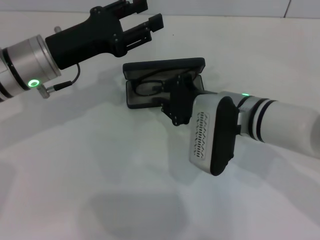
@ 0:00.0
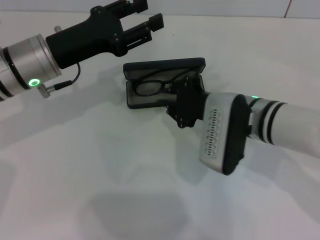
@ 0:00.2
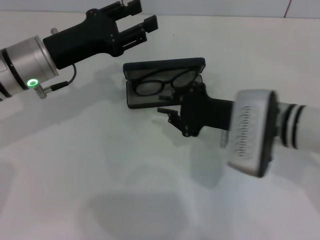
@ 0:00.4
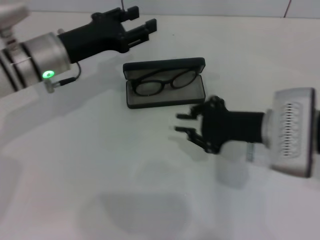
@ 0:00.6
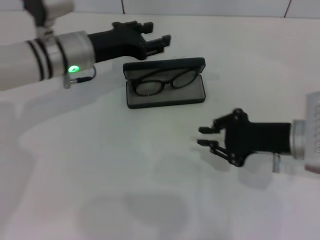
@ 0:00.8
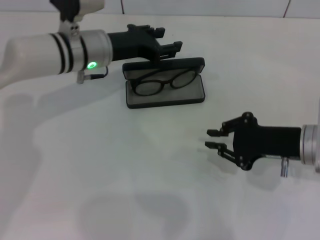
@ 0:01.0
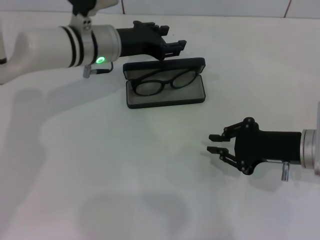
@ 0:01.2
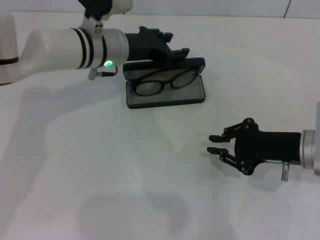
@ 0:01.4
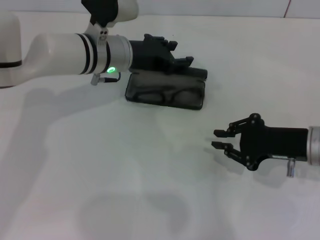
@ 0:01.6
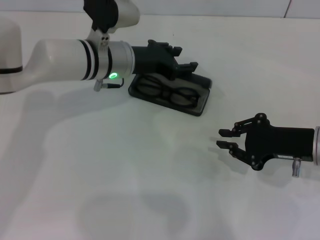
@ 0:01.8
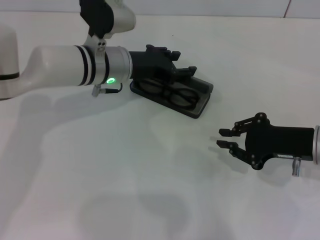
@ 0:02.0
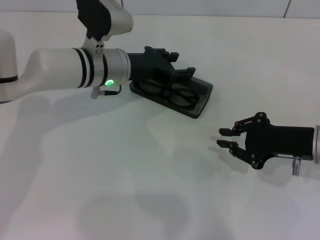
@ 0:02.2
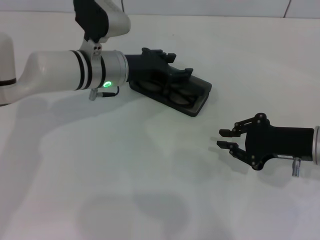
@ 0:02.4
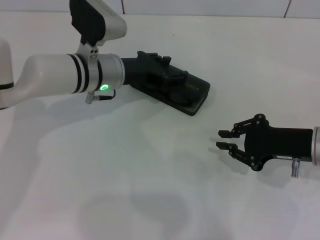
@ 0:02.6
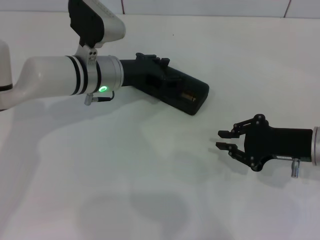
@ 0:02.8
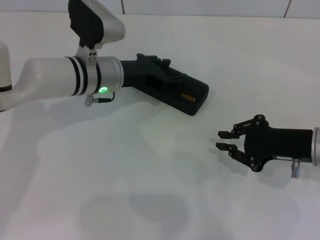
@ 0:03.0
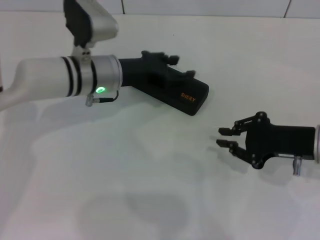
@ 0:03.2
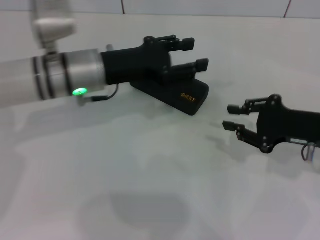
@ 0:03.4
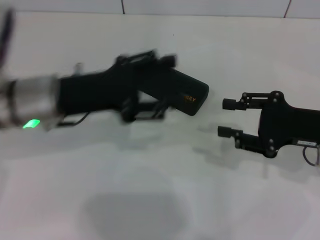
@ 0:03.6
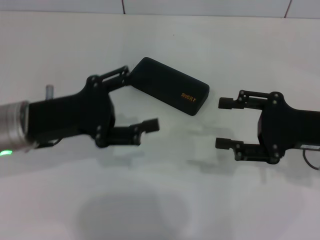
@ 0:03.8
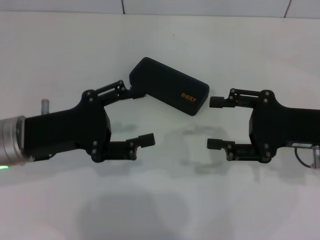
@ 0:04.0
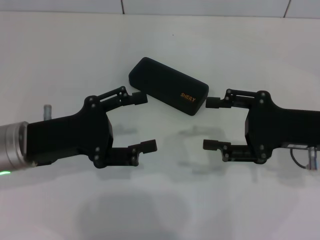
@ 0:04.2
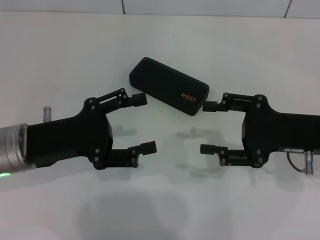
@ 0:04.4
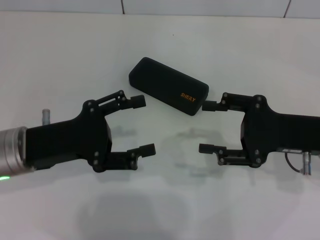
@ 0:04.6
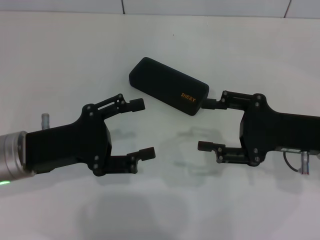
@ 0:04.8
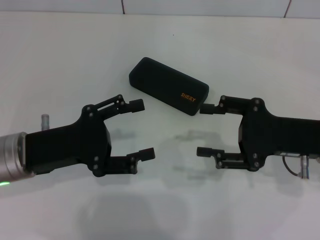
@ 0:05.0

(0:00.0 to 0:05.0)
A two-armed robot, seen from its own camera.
Step, 0:00.0 - 0:02.6: Close the glasses case with your left hand.
0:00.0 - 0:01.6: The right gripper is displaced to the right by some 15 cm, while the left gripper is displaced to the right and forward by approximately 10 cm.
0:01.6 - 0:03.4: The left gripper is displaced backward by roughly 5 cm.
0:03.4 - 0:05.0: The right gripper opens up. The left gripper is displaced backward and to the left by some 15 cm.

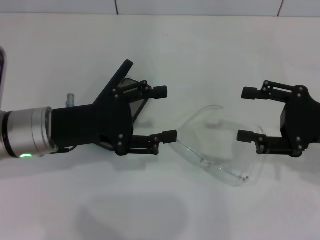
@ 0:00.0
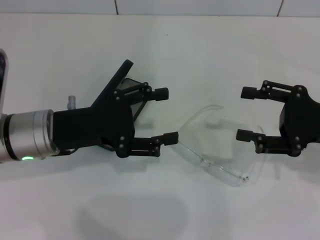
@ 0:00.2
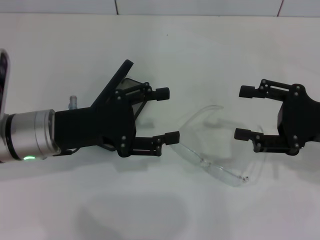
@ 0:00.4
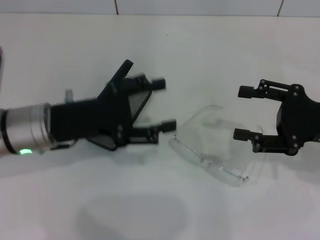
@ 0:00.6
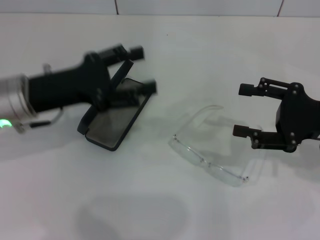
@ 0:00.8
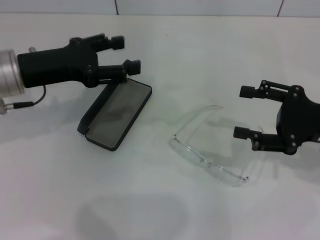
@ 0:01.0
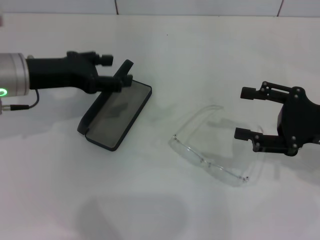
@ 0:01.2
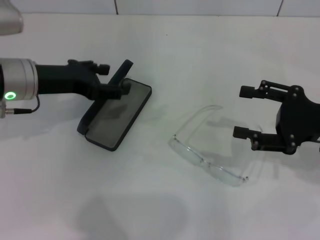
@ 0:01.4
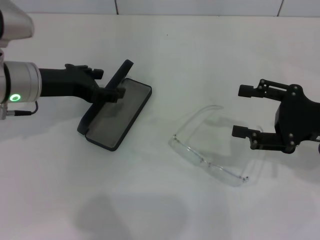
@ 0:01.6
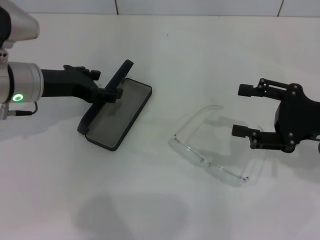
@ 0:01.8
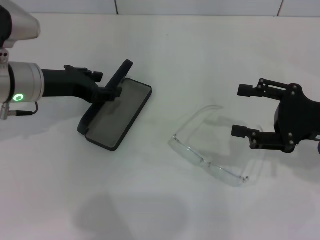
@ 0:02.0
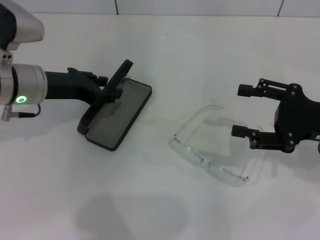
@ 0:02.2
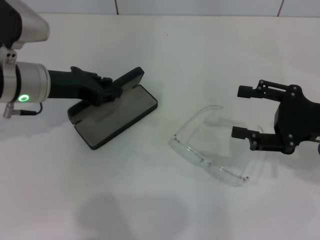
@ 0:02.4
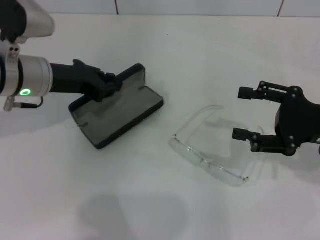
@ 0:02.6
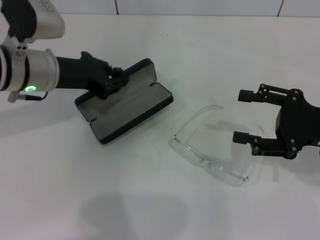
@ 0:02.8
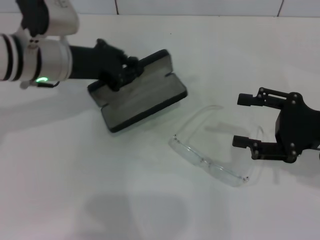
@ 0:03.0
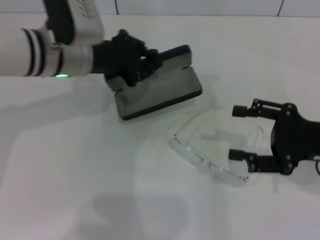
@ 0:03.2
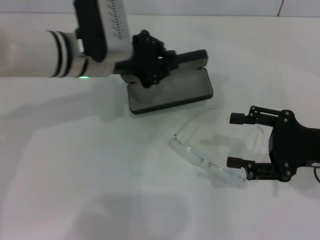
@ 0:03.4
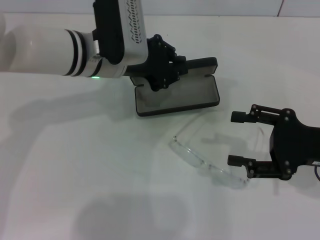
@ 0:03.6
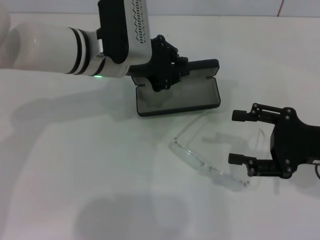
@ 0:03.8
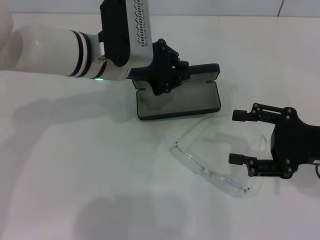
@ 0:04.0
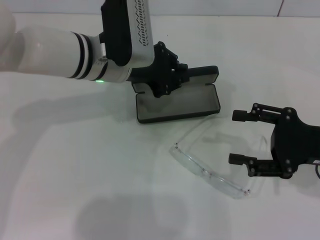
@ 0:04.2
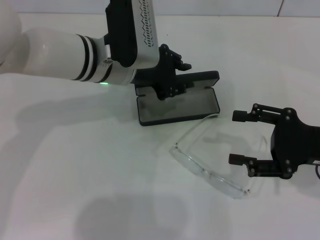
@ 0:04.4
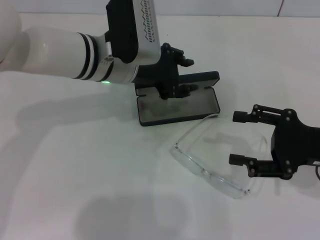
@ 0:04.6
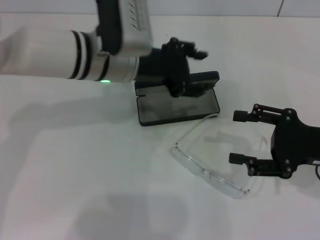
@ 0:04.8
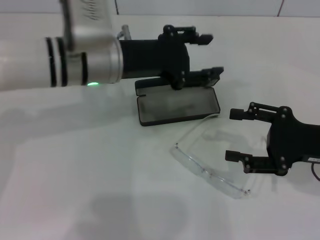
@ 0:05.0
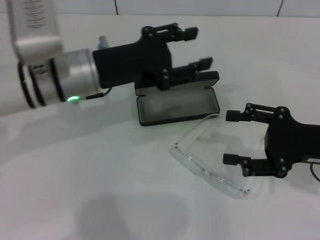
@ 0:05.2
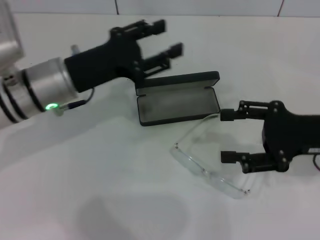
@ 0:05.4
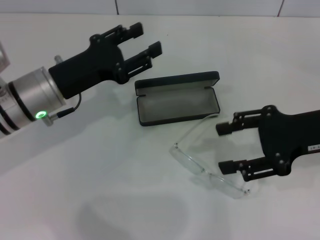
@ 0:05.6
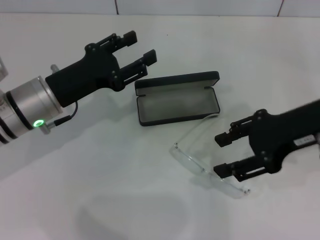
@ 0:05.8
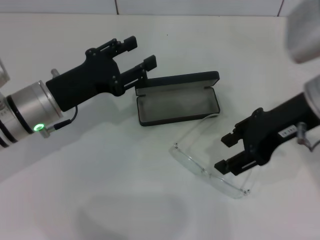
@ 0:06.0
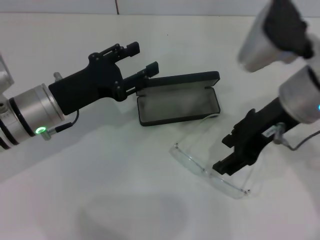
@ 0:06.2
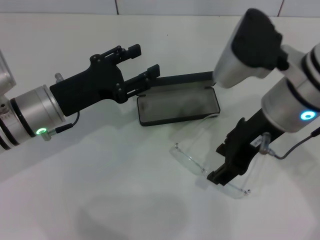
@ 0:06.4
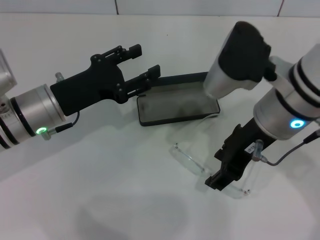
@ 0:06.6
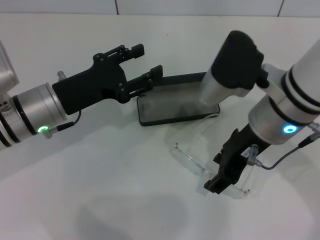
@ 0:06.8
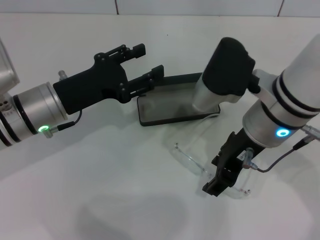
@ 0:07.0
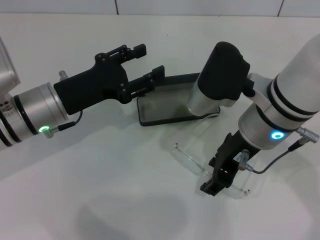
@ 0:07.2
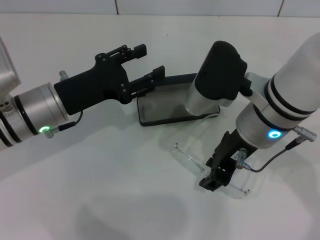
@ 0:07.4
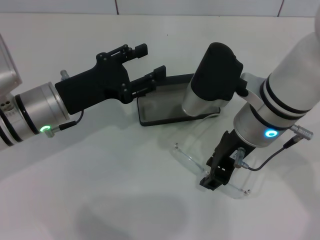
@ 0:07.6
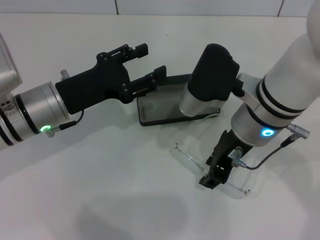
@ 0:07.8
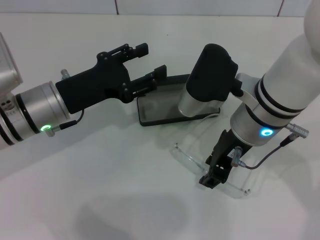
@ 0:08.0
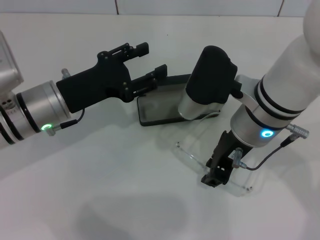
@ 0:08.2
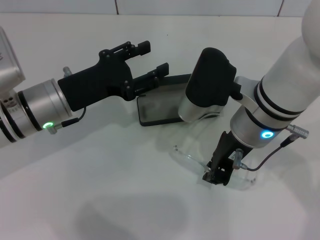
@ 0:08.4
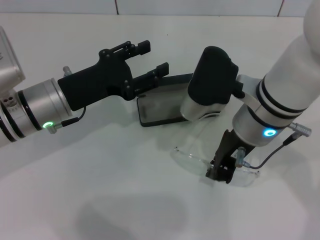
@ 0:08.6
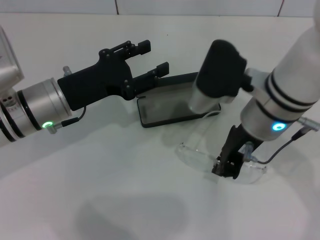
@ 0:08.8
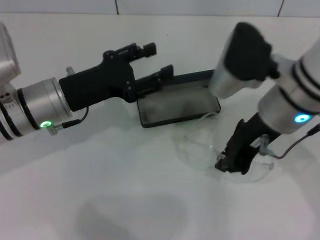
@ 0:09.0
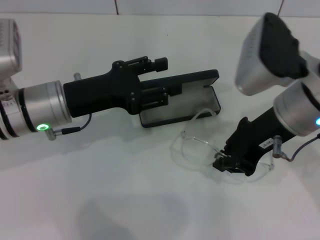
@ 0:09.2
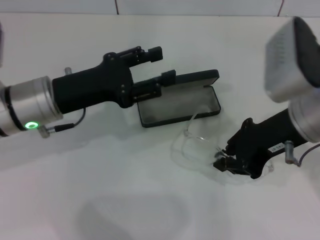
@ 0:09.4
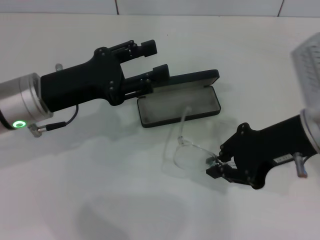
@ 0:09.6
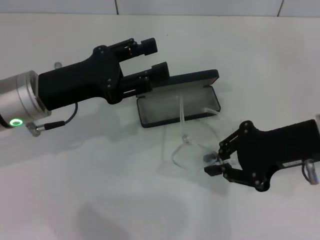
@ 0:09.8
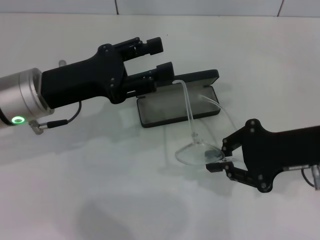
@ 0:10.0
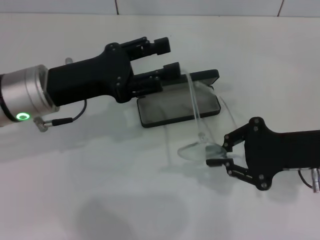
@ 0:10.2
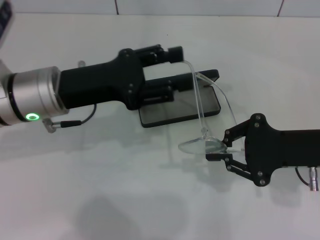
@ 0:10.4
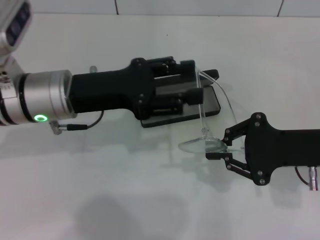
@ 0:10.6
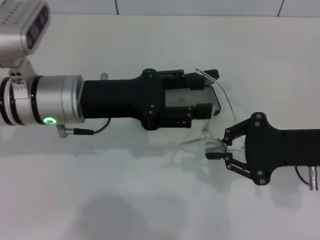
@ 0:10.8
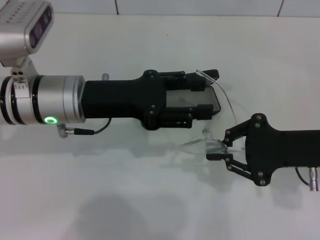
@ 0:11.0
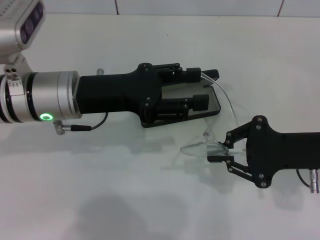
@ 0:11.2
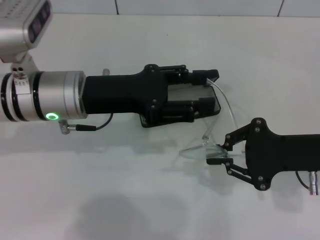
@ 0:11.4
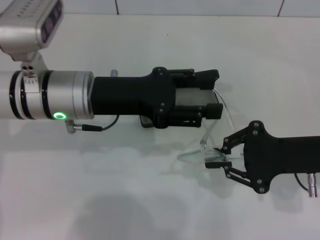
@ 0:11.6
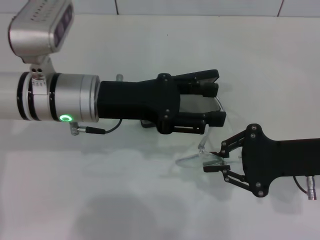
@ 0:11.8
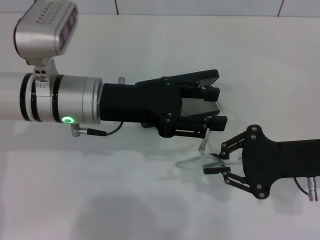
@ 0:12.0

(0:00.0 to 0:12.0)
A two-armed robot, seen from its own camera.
Step, 0:00.0 - 0:02.4: Grab the glasses case with your left hand.
Step, 0:02.6 - 0:04.4: Place the glasses case in the center of the table with your left hand.
Step, 0:04.6 - 0:08.6: Grab the eyeglass frame with your right hand.
0:00.0 - 0:01.6: The left gripper travels forward by roughly 5 cm.
0:01.6 - 0:03.0: The left gripper changes place by roughly 5 cm, and closes.
0:03.0 - 0:04.4: The left gripper shifts roughly 10 cm to the right.
0:04.4 - 0:06.0: The right gripper travels upward and to the left by roughly 15 cm, while the left gripper shifts roughly 15 cm to the left and backward, and opens.
0:06.0 - 0:07.6: The right gripper moves to the left, about 10 cm.
0:07.6 - 0:09.0: The right gripper closes.
0:09.0 - 0:10.4: The right gripper goes approximately 10 cm to the right and downward.

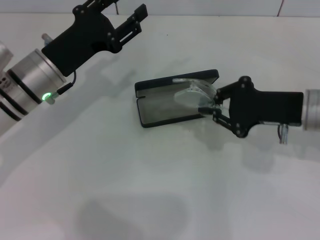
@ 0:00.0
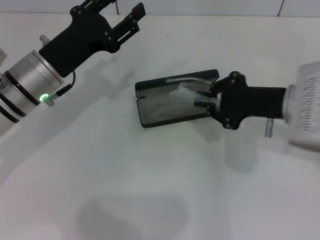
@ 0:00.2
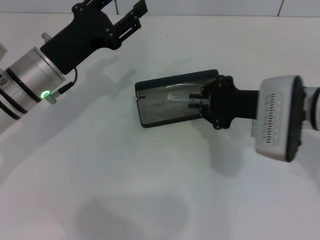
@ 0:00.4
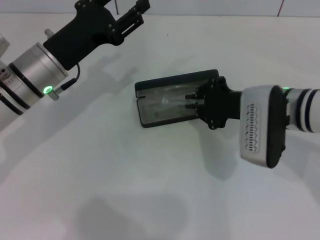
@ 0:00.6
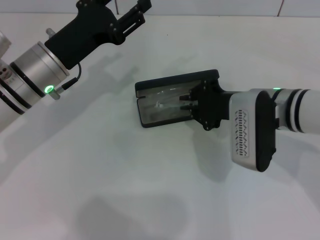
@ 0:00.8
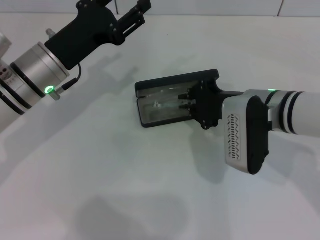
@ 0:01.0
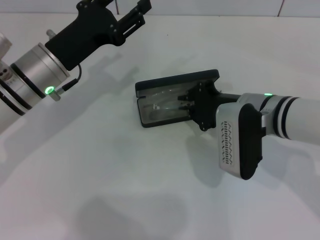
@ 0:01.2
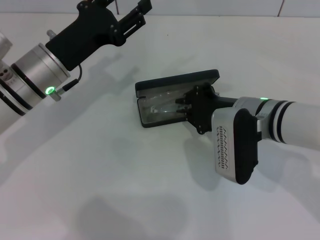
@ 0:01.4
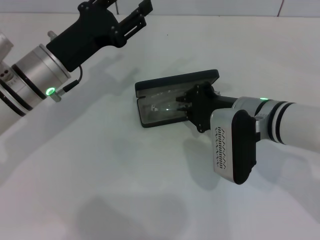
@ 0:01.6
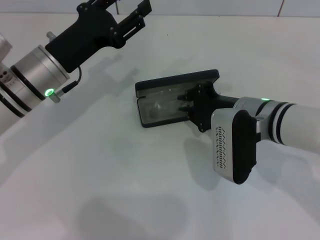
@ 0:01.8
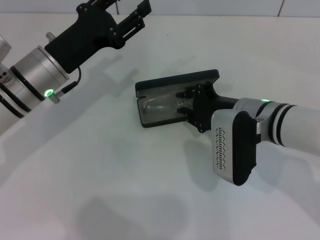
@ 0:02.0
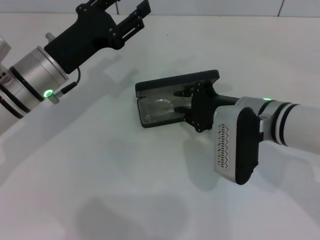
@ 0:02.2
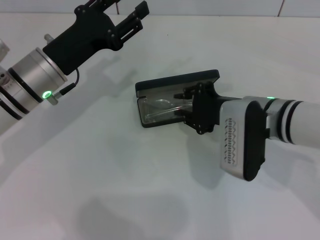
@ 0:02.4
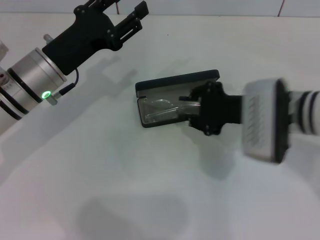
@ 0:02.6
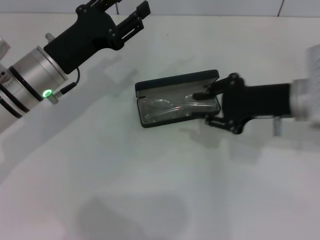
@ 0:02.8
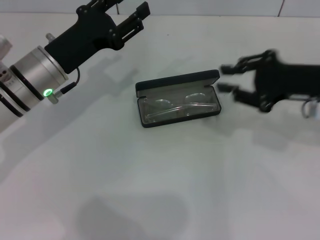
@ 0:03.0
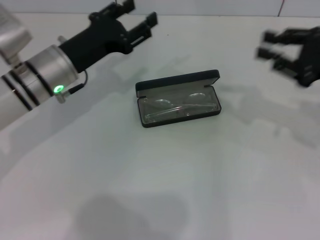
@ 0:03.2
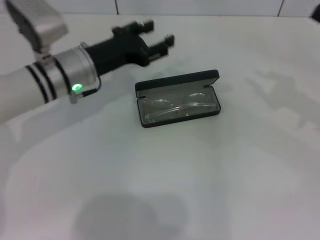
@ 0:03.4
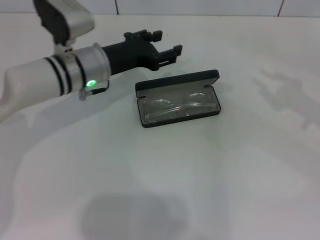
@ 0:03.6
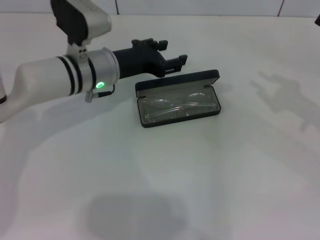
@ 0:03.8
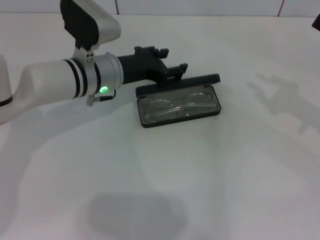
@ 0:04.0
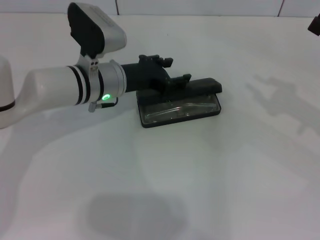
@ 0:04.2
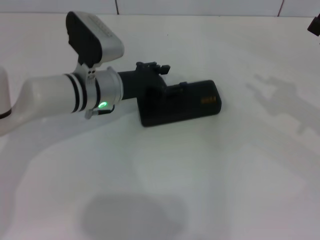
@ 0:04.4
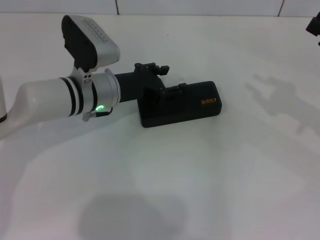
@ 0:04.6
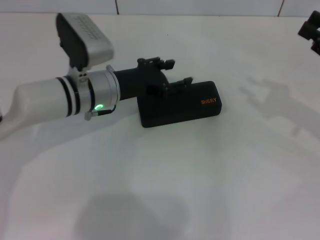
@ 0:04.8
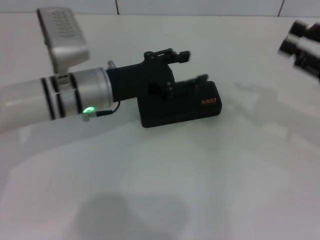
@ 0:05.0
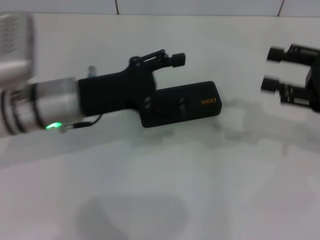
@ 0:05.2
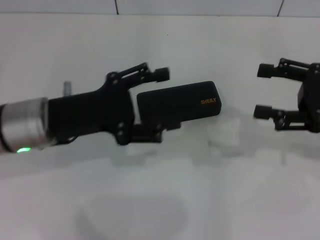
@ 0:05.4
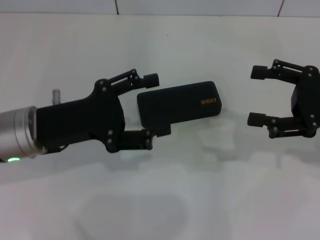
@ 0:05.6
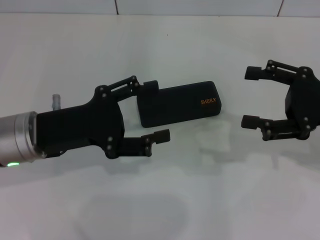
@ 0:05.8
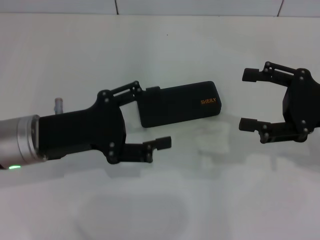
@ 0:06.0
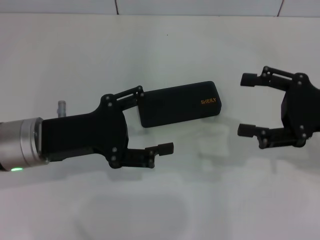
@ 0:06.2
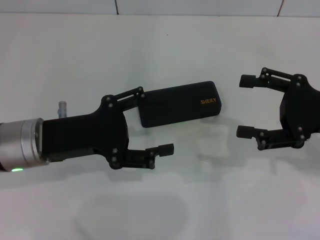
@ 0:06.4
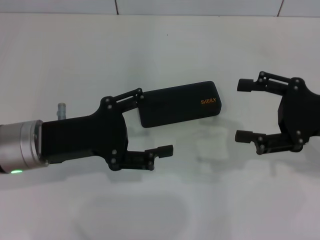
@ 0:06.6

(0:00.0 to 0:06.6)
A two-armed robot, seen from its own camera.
Step, 0:00.0 - 0:02.2: Put the glasses into the case with your right hand.
Step, 0:02.4 - 0:04.6: Close the glasses case with your left hand.
0:00.0 - 0:01.6: The right gripper is displaced to the left by some 10 cm.
0:01.6 - 0:03.2: The right gripper goes some 20 cm to the right and upward.
0:05.0 - 0:06.6: The right gripper opens; the left gripper moves backward and to the left, some 10 cm.
